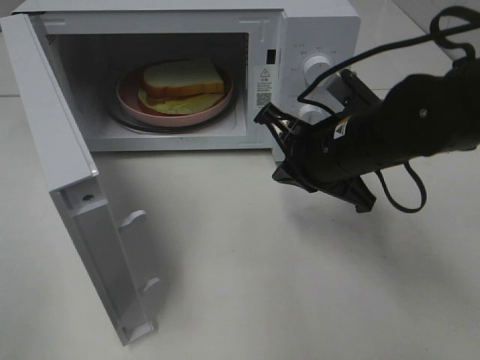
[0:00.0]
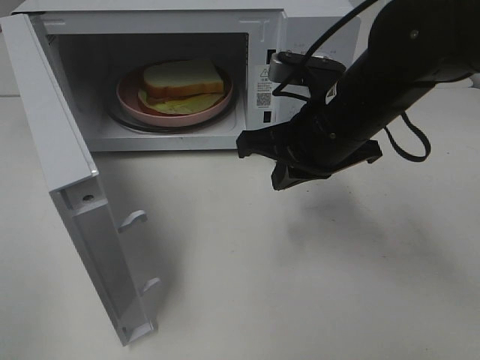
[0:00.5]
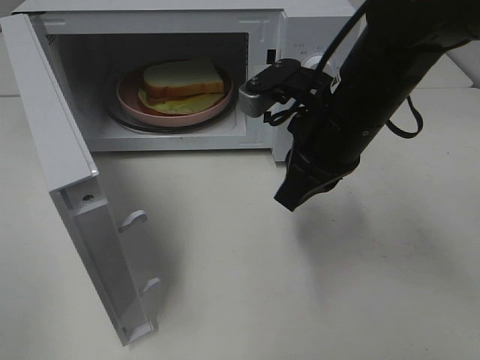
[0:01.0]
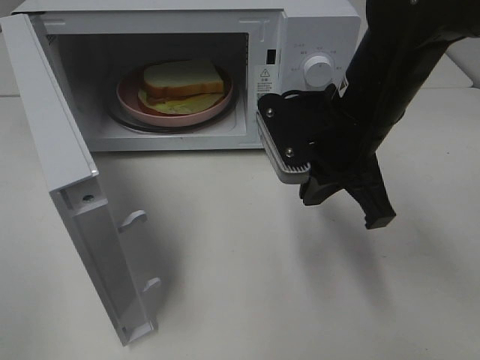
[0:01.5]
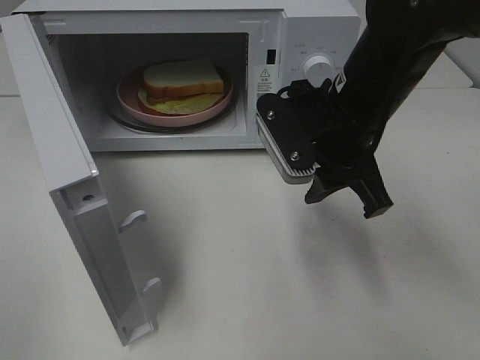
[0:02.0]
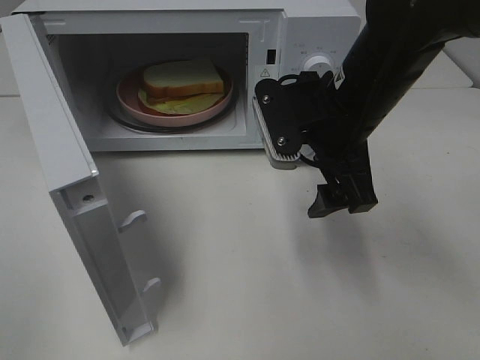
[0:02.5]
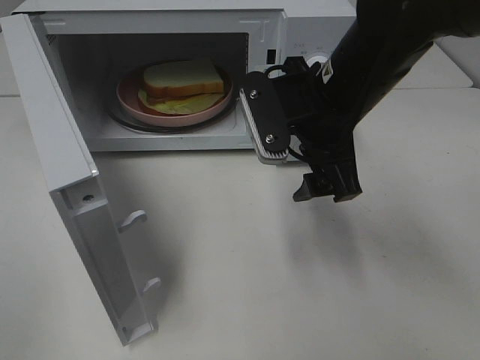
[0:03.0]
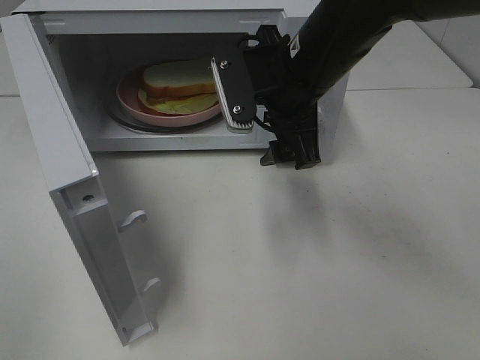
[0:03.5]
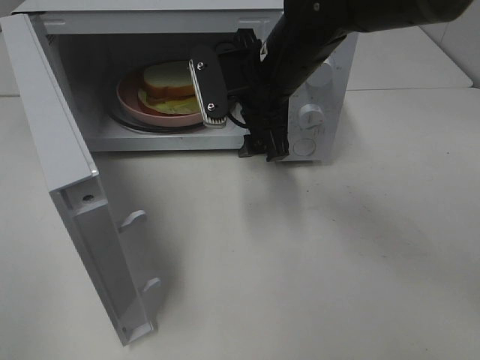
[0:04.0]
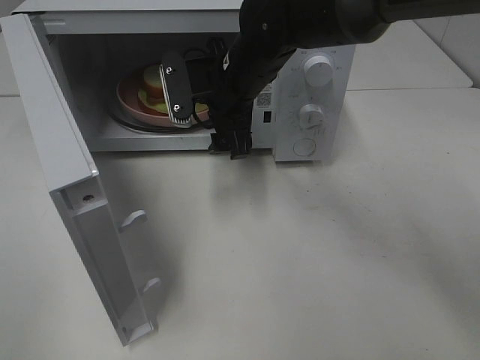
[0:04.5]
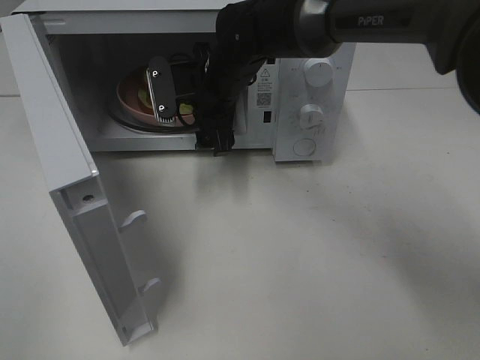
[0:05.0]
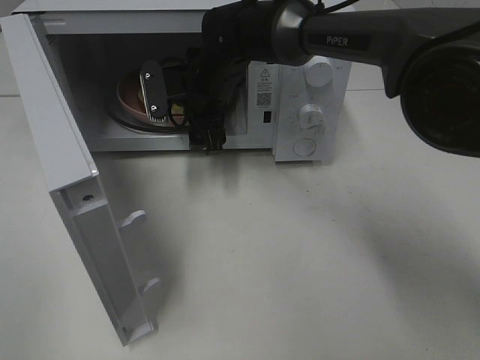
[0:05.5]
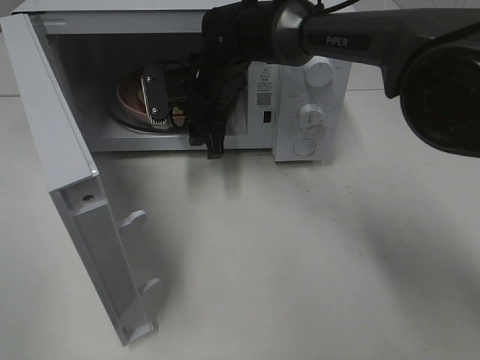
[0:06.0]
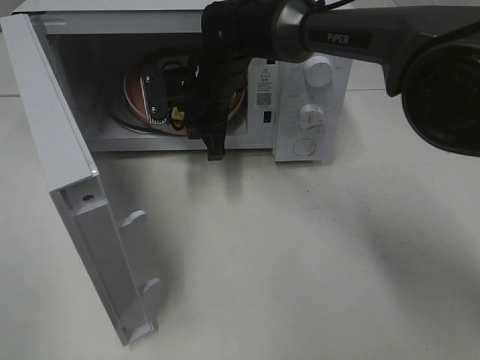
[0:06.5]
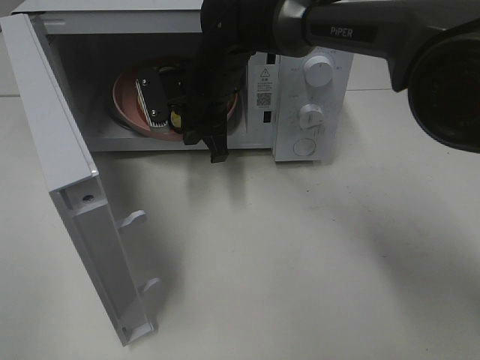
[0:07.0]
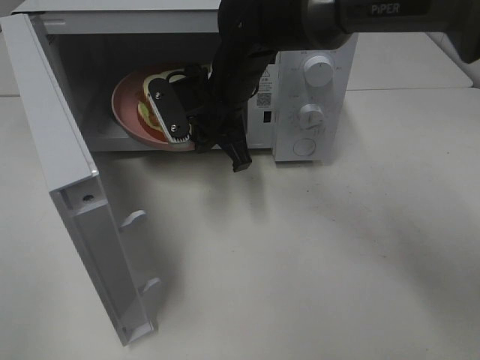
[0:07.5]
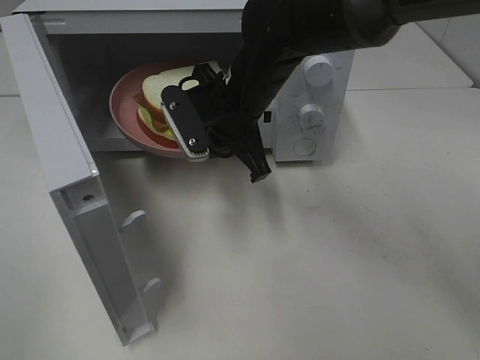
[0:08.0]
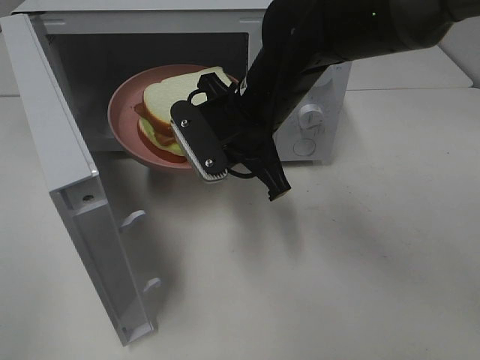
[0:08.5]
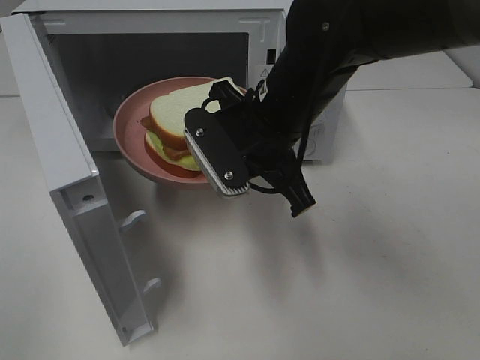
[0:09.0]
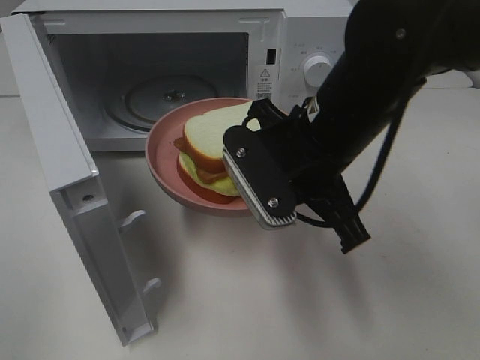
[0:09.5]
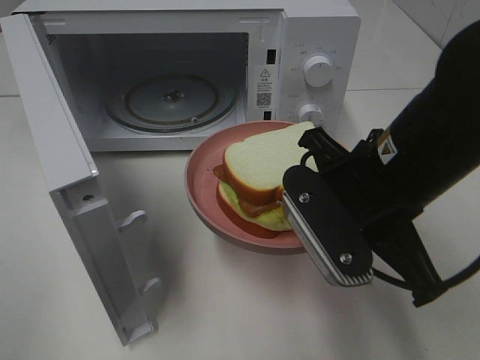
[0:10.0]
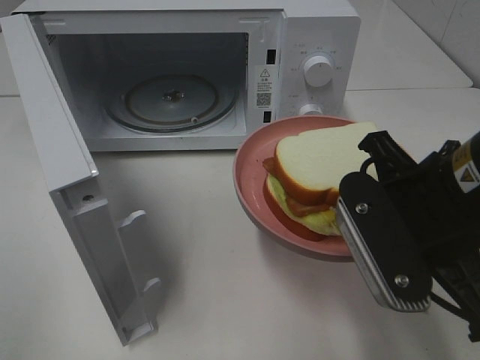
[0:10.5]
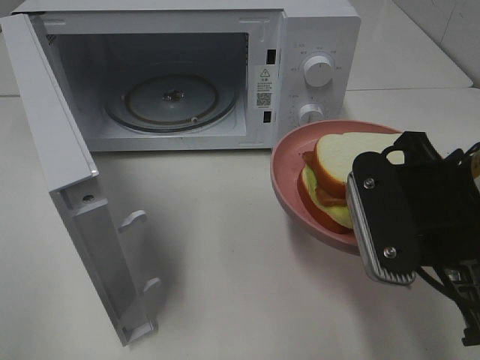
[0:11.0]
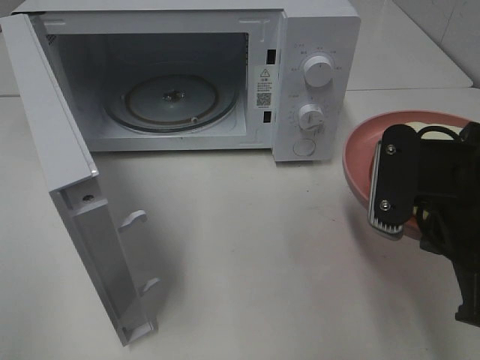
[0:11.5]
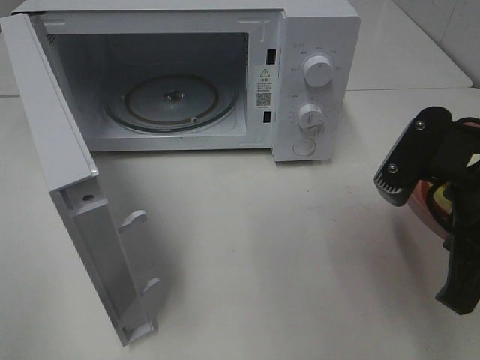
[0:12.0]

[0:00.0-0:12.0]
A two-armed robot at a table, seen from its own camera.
Task of the whole recording: Heat Sandwich.
Step, 0:00.0 to 0:05.0: Right hand: grab the plate with the sandwich.
0:00.0 to 0:02.0: The right gripper opens.
0:02.0 to 0:04.0: The right gripper moves forward and to the left, approximately 10 cm, and opens up.
0:04.0 to 0:06.0: The right gripper moves forward, to the left and downward, roughly 10 cm, and closes.
0:06.0 to 0:08.0: The right gripper shifts about 5 cm backward, and closes.
0:08.0 to 0:10.0: The right gripper travels backward and to the right by some 20 cm.
0:10.0 to 0:12.0: The right gripper travels to the right by some 5 cm.

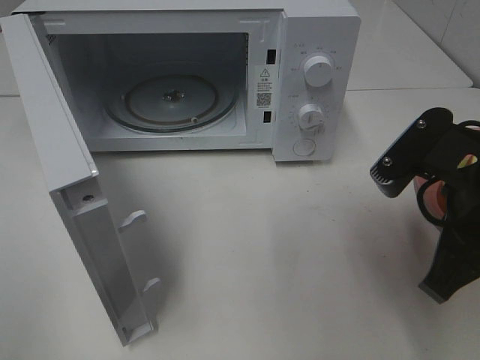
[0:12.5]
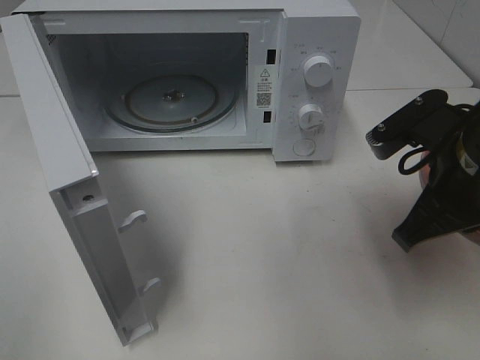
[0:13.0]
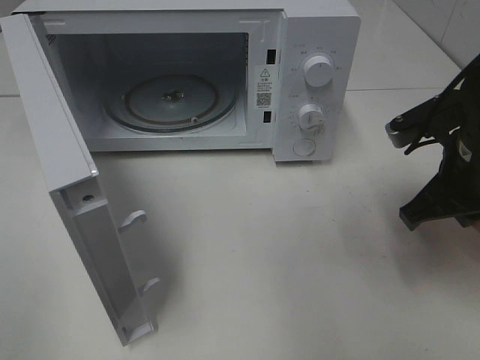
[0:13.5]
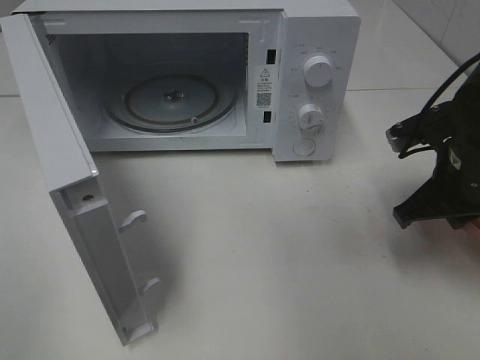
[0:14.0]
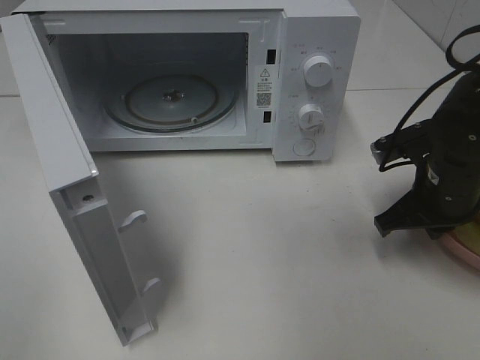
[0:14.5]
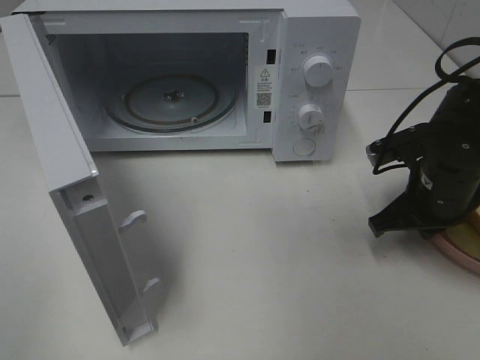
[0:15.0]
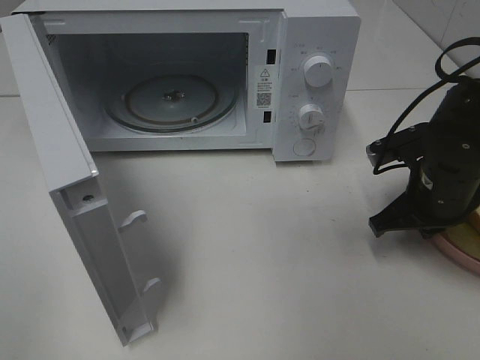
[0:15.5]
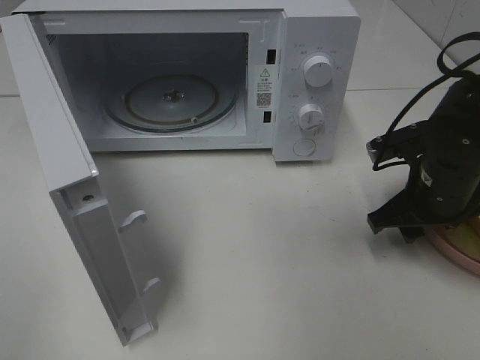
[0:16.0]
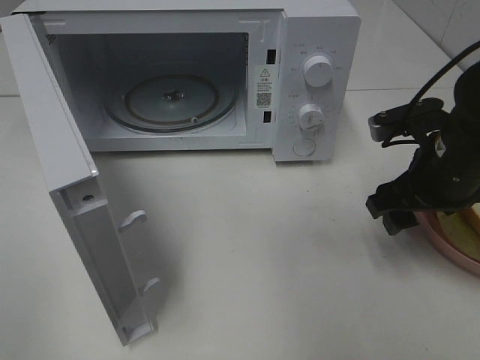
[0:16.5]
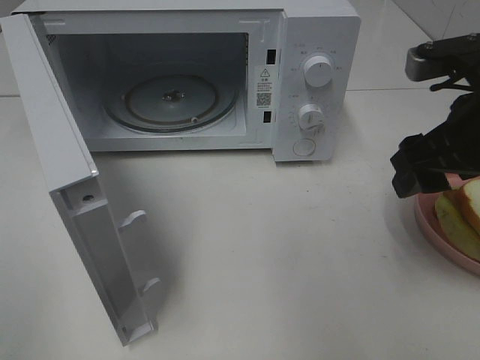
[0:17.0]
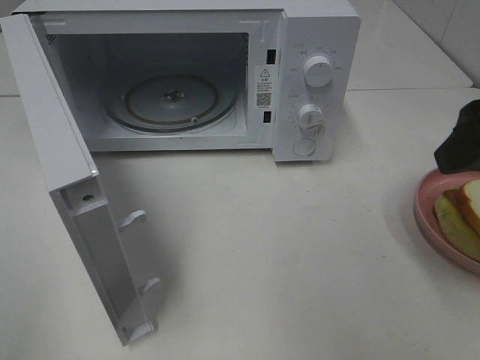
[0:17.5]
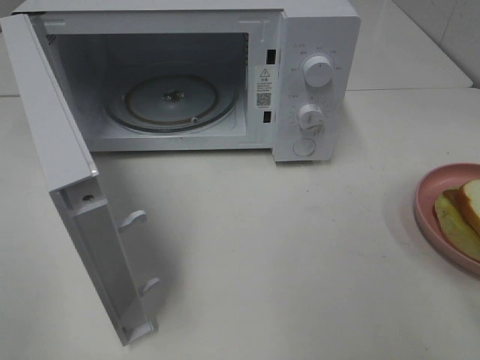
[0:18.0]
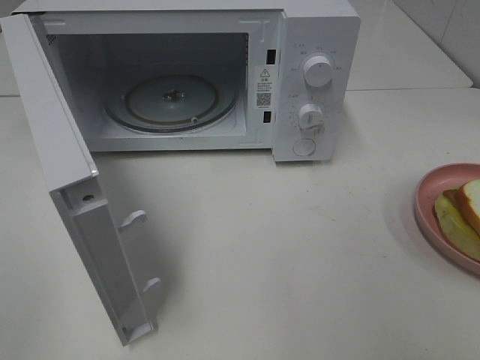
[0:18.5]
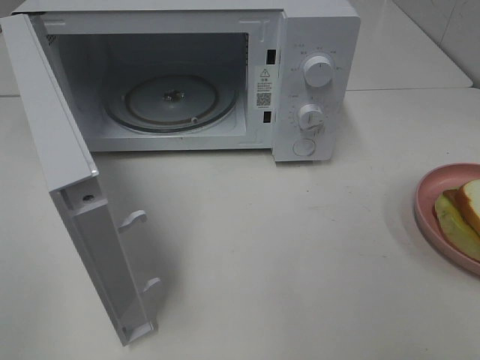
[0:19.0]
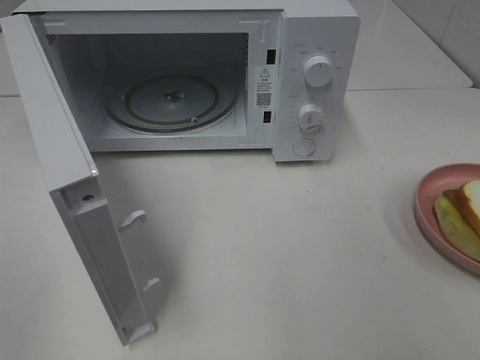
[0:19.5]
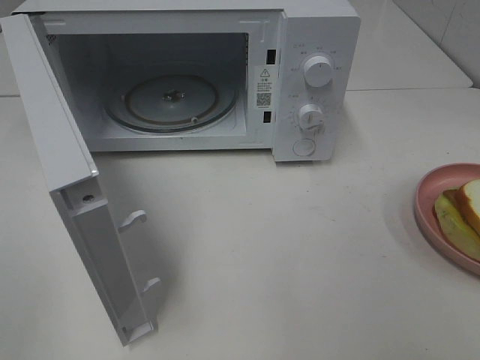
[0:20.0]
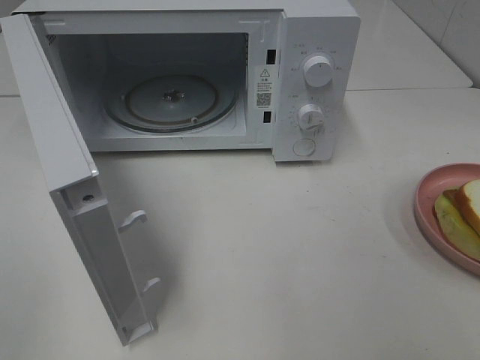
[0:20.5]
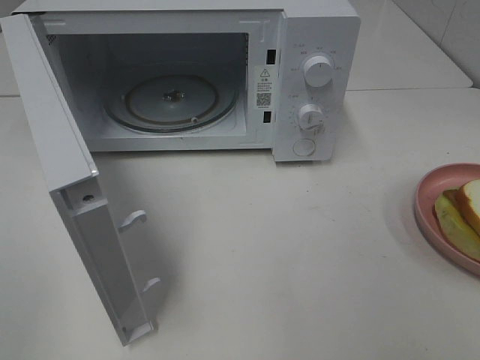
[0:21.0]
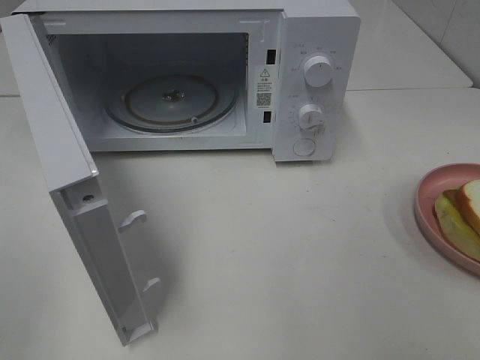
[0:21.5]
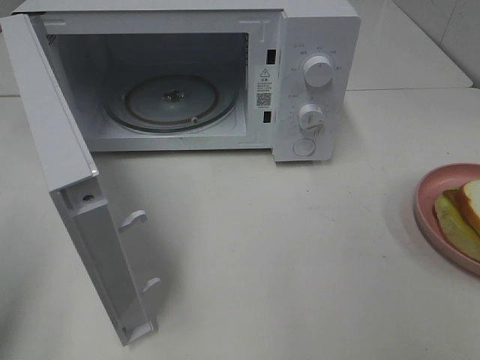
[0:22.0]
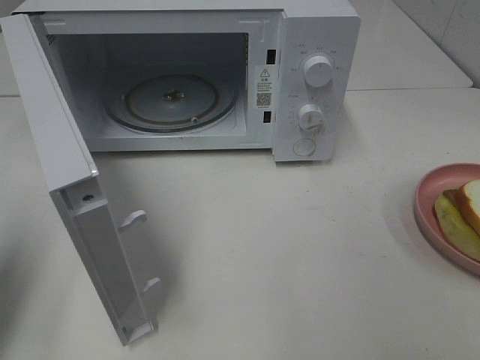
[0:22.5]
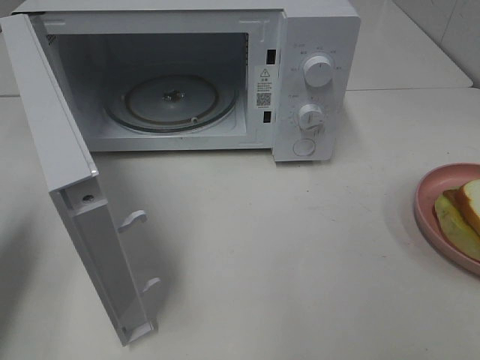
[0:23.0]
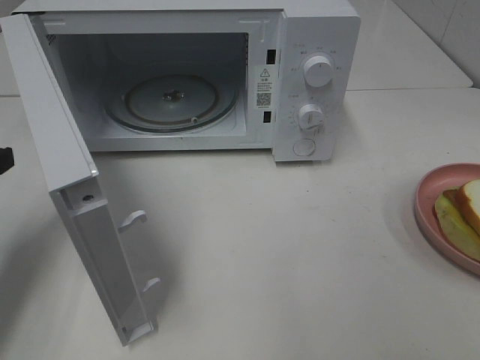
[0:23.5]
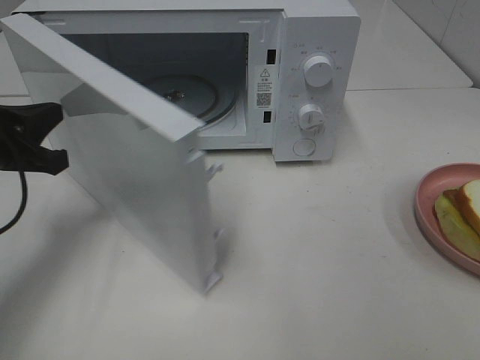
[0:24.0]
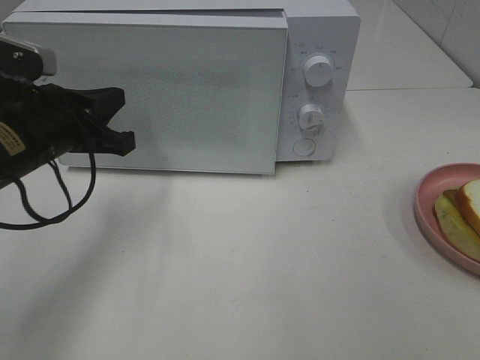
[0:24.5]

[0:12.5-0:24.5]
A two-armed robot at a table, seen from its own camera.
Task of the whole recording: Heat Sandwich.
Step, 0:12.5 to 0:16.5: Right hand: place the plate on the table.
0:12.5 to 0:14.5: The right gripper heads forward and downward, covering some 15 cm.
0:14.5 to 0:16.5: The right gripper opens.
0:16.5 to 0:18.5: The right gripper travels backward and upward by about 25 cm.
0:20.5 to 0:22.5: The left gripper shifts about 15 cm forward, and closes up.
0:22.5 to 0:24.5: The left gripper shifts approximately 20 cm to the right, forward and downward.

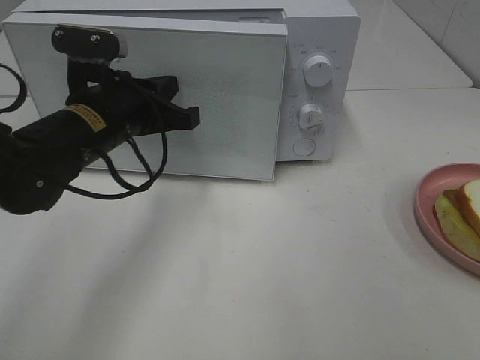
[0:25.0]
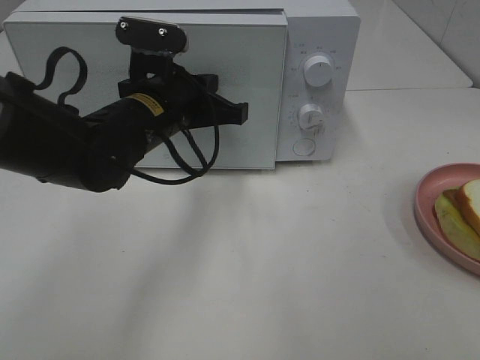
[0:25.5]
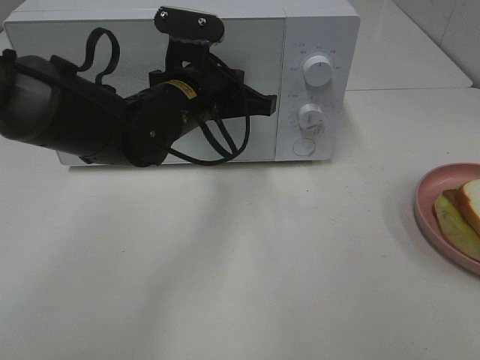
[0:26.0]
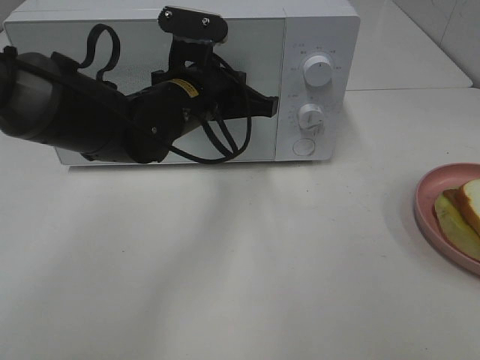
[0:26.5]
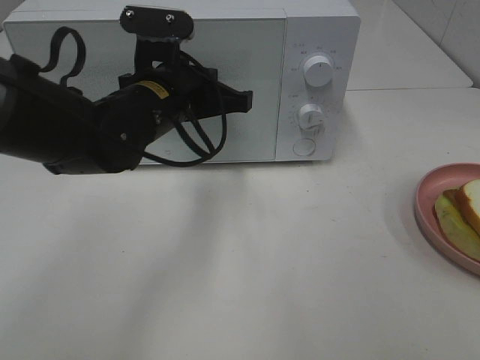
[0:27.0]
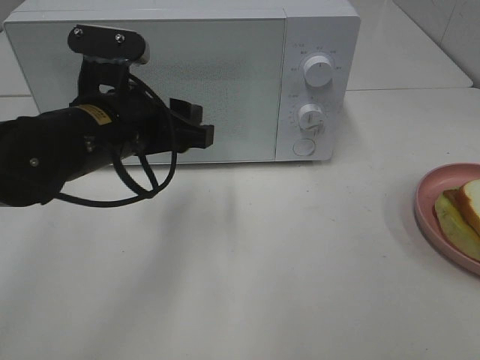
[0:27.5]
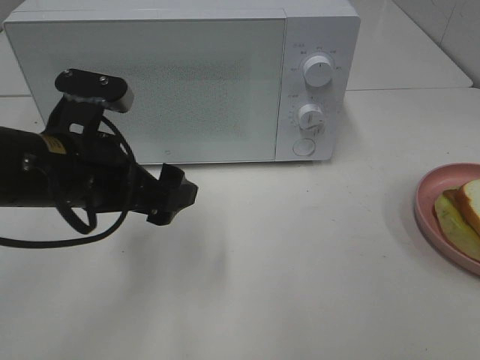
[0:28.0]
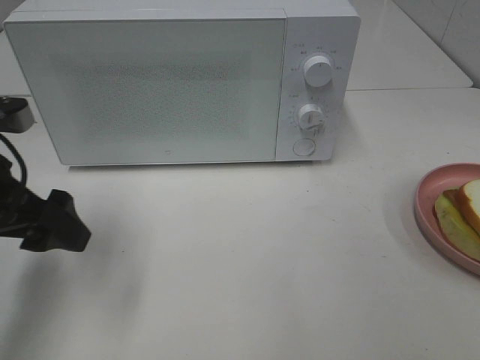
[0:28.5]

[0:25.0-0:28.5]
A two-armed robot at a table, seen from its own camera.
Task of the whole recording: Heat Sandwich.
Step, 0:25.0 to 0:27.0: Left hand: close the microwave door.
0:25.0 to 0:27.0: The left gripper is displaced to the right by about 5 cm.
0:27.0 to 0:28.5: The left gripper is displaced to the left and backward by about 20 cm, and opens.
